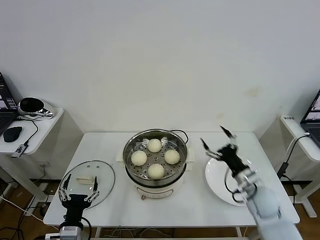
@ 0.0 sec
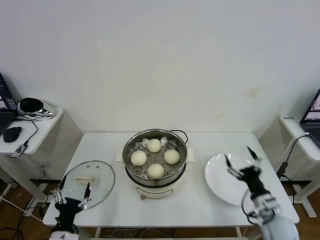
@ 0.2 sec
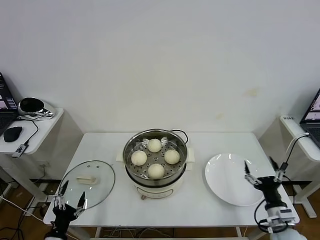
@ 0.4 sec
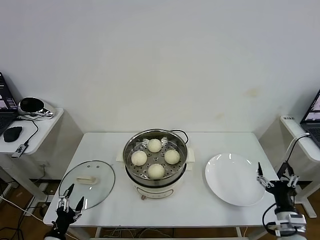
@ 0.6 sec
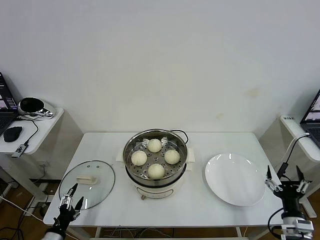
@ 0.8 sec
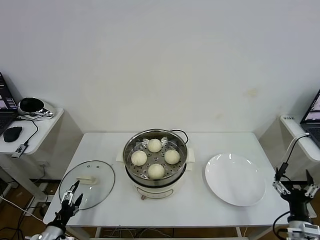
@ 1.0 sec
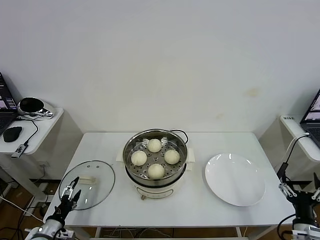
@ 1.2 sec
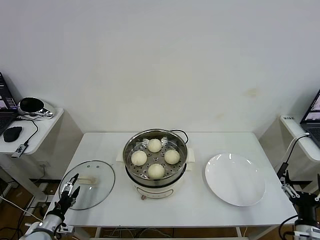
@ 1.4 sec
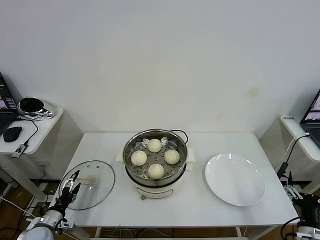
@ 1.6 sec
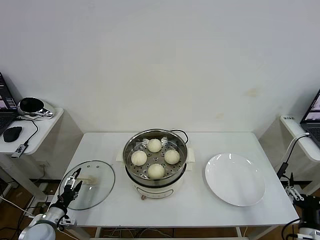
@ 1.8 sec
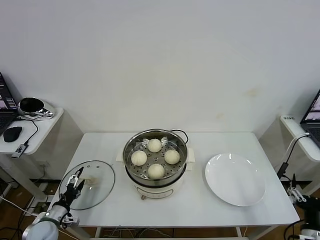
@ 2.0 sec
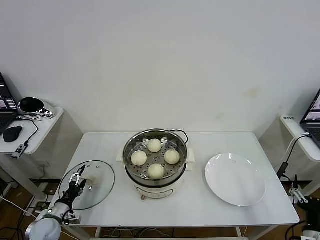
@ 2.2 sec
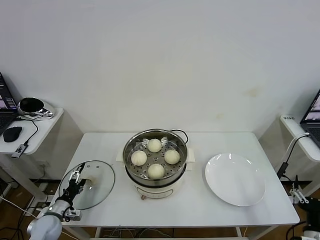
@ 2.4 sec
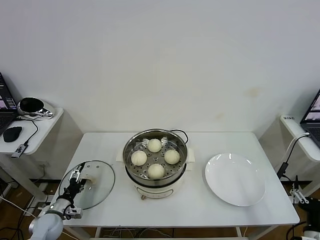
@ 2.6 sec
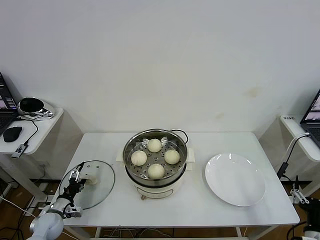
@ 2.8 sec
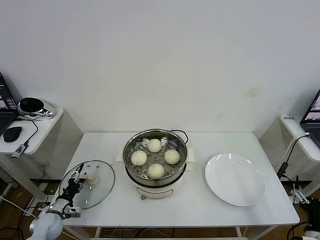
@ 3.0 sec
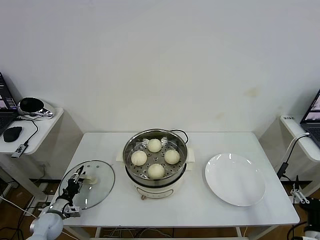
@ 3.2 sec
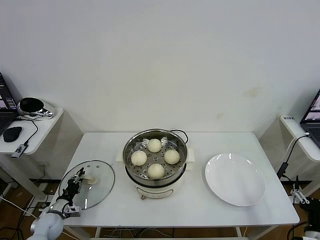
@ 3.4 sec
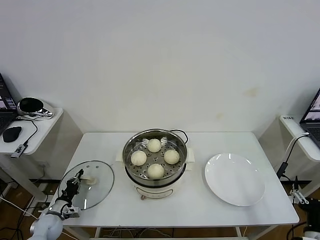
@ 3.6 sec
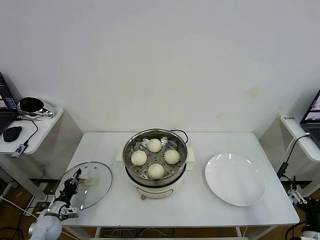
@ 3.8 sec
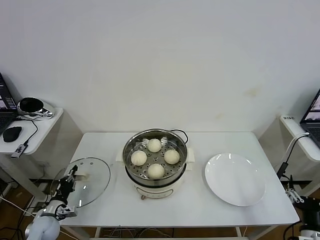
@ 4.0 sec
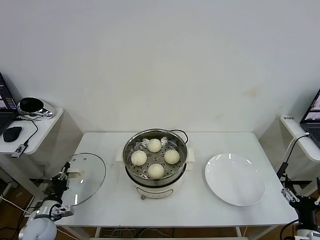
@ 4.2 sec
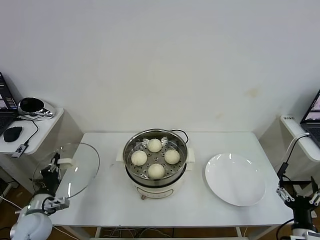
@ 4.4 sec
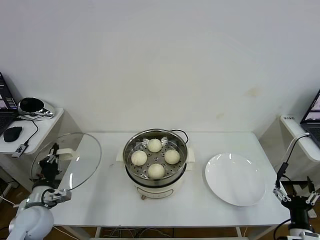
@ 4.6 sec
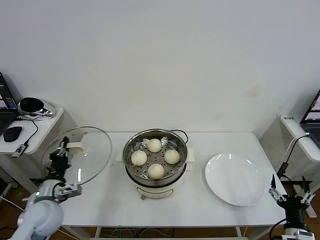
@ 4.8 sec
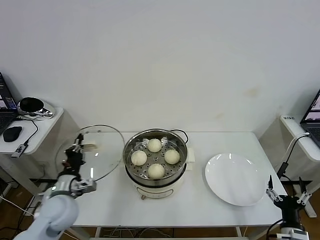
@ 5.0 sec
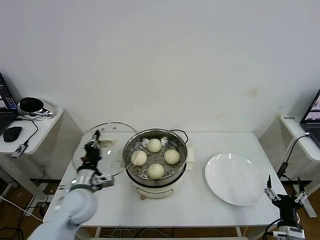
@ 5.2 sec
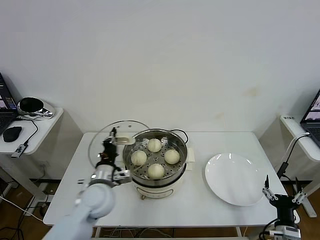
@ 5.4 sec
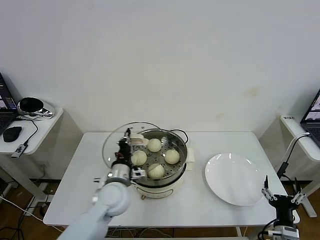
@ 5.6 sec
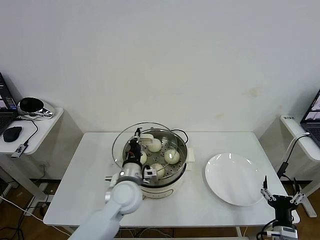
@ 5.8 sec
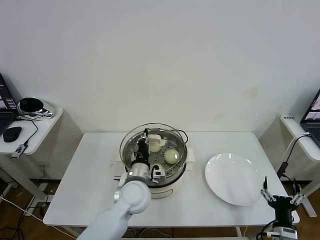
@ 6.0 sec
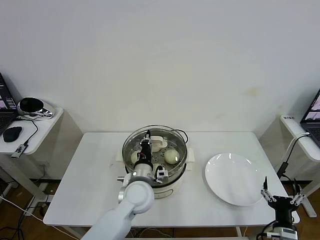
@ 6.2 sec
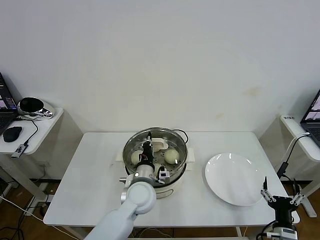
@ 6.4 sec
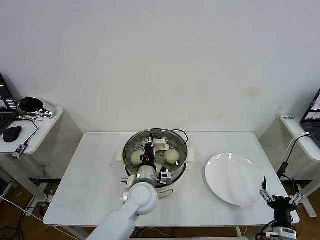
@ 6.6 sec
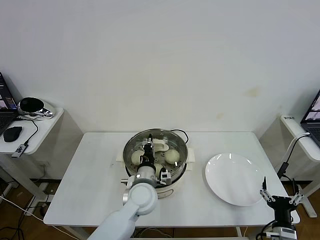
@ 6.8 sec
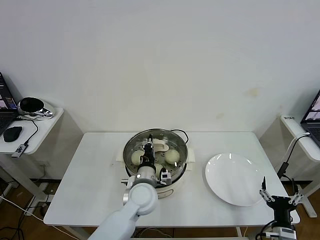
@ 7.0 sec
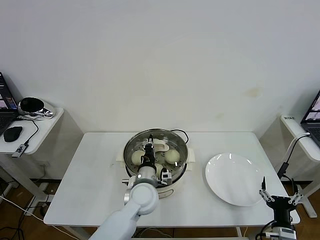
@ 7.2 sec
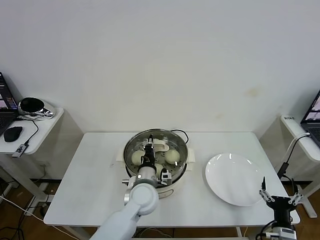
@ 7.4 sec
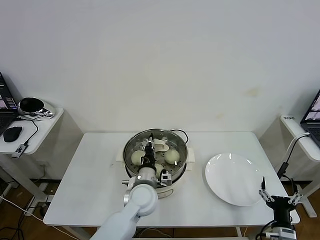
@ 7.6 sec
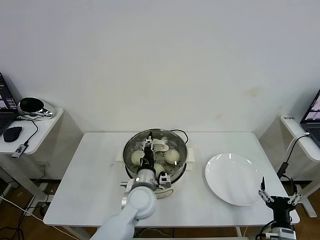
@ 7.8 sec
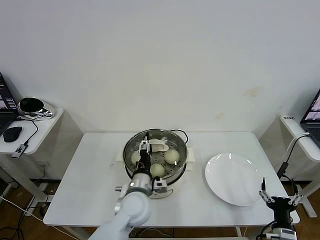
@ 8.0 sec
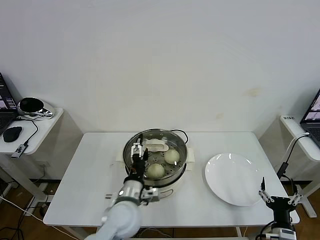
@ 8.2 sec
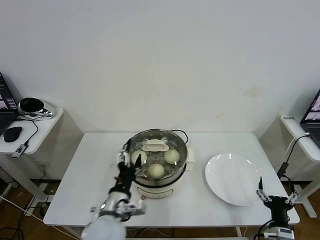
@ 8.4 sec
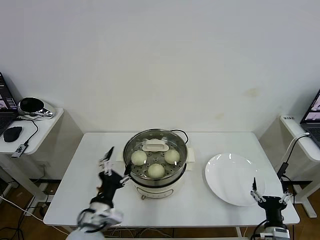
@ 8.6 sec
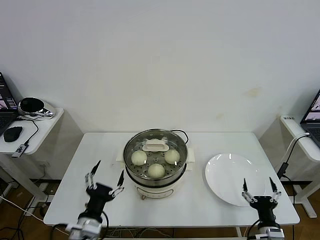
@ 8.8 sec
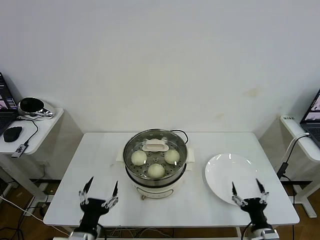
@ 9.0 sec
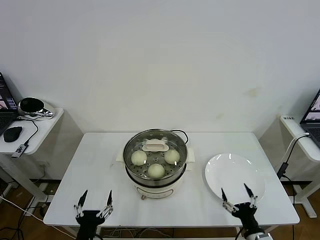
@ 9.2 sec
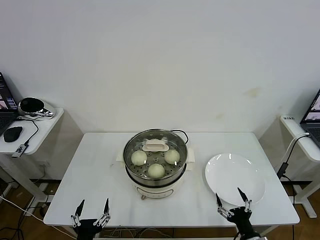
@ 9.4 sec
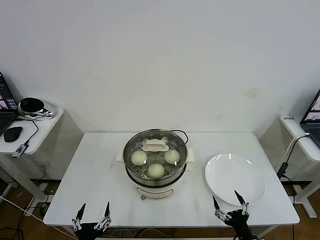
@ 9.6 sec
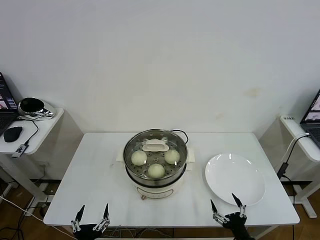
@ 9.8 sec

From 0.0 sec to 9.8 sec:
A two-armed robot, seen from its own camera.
Task of the whole recording: take steamed baozi put them in steamer then cover it.
Step, from 0.0 sec to 3.6 sec: Grasp the pot lid with left gripper.
Step, from 4.0 sec to 7.8 sec: Place the pot lid on the steamer with left gripper.
From 0.0 sec to 1.4 sec: The right gripper is displaced backward and to the right by approximately 20 cm. Meanwhile the left gripper moves to the left and downward, roughly 20 cm.
From 1.4 sec to 2.8 sec: The left gripper is displaced forward by approximately 10 cm.
From 2.8 sec to 4.2 sec: The left gripper closes up.
From 4.2 sec to 5.6 sec: The left gripper moves to the right and upward, some 30 cm; the right gripper ends up approximately 5 cm from where it was.
From 5.6 sec to 7.0 sec: The left gripper moves to the right, some 10 cm.
From 7.0 sec to 8.4 sec: The left gripper shifts roughly 10 cm backward and to the left, and opens up.
From 8.4 sec to 9.8 sec: The right gripper travels to the left by roughly 5 cm, while the left gripper shifts about 20 cm backward, to the left and downward.

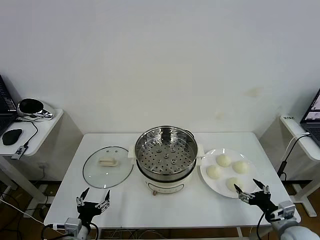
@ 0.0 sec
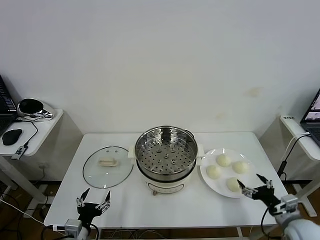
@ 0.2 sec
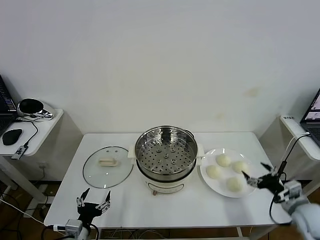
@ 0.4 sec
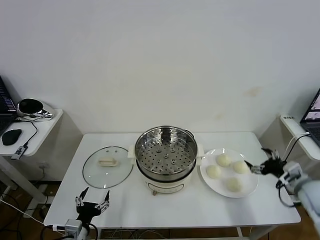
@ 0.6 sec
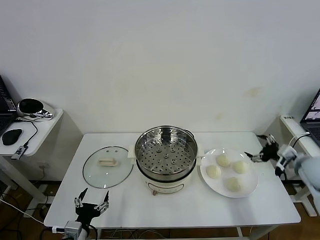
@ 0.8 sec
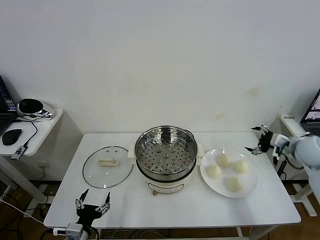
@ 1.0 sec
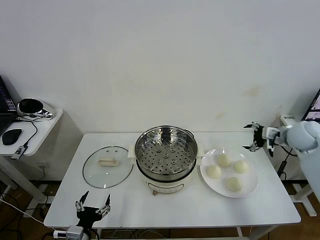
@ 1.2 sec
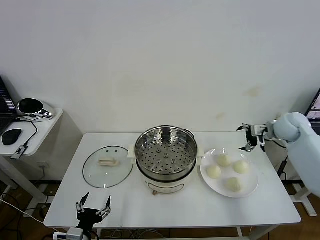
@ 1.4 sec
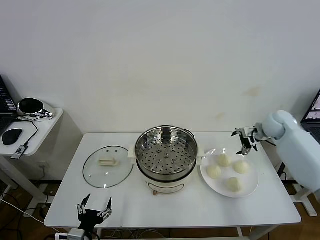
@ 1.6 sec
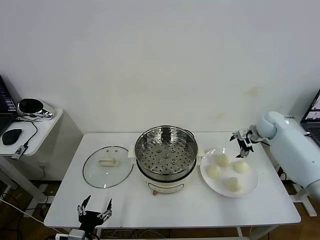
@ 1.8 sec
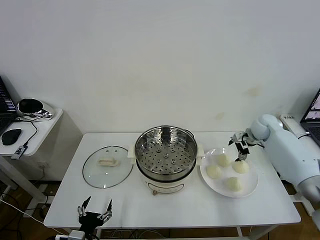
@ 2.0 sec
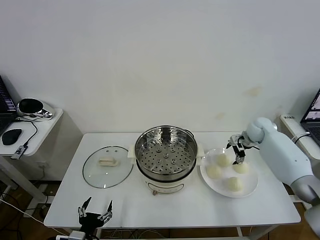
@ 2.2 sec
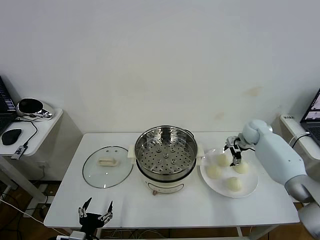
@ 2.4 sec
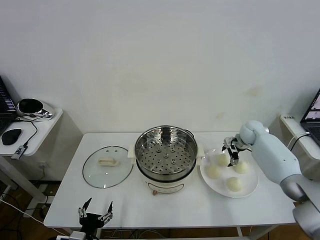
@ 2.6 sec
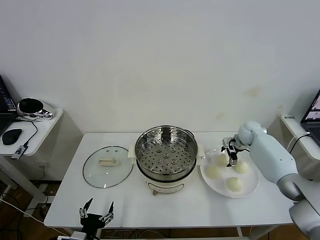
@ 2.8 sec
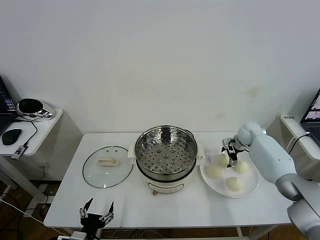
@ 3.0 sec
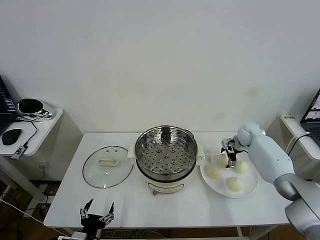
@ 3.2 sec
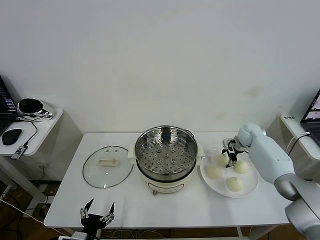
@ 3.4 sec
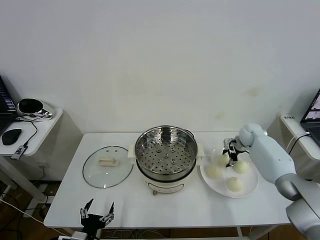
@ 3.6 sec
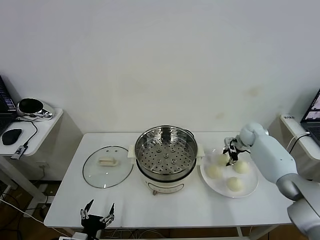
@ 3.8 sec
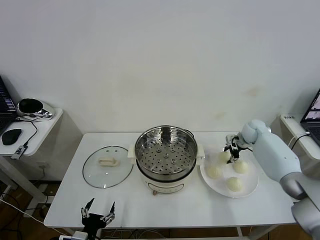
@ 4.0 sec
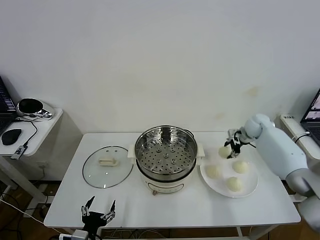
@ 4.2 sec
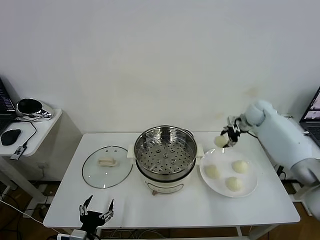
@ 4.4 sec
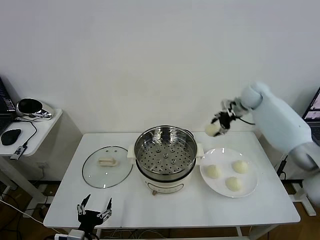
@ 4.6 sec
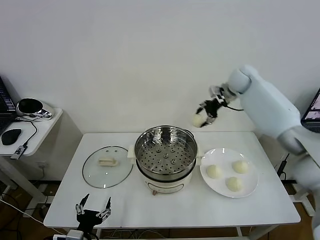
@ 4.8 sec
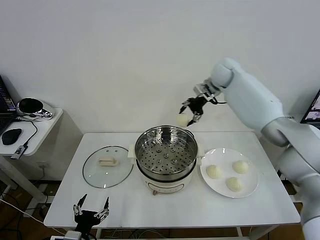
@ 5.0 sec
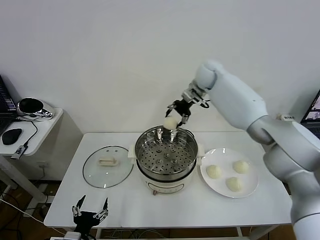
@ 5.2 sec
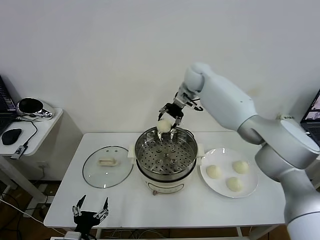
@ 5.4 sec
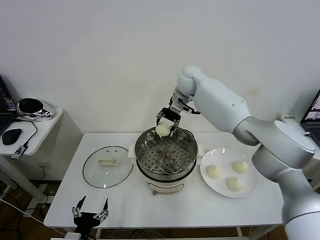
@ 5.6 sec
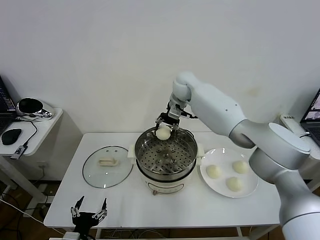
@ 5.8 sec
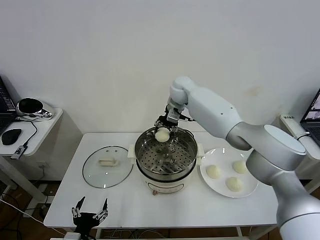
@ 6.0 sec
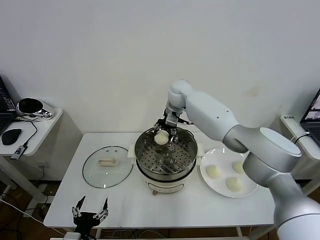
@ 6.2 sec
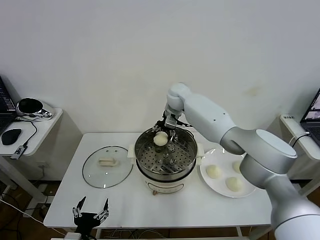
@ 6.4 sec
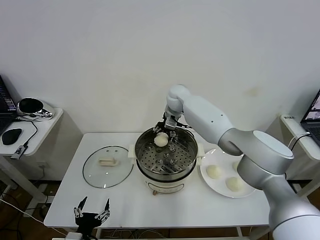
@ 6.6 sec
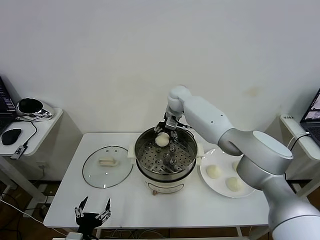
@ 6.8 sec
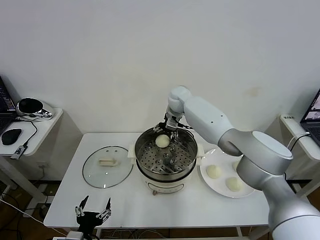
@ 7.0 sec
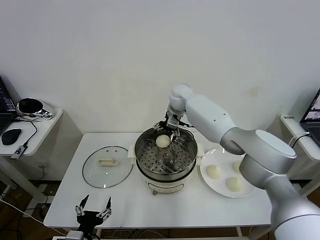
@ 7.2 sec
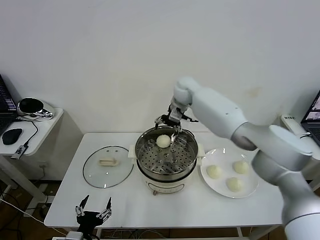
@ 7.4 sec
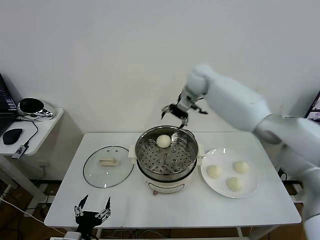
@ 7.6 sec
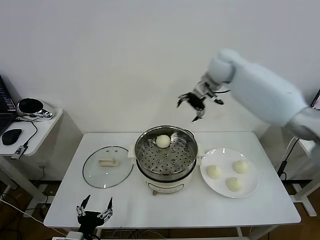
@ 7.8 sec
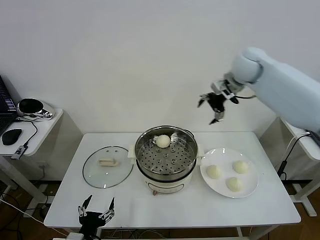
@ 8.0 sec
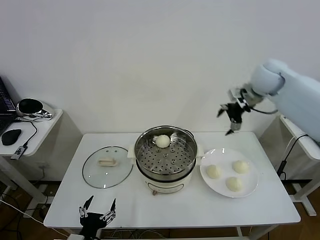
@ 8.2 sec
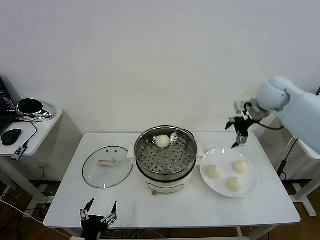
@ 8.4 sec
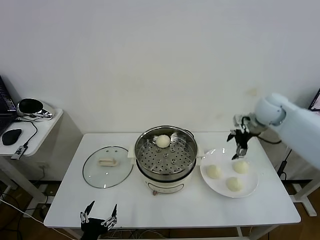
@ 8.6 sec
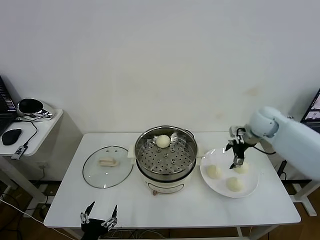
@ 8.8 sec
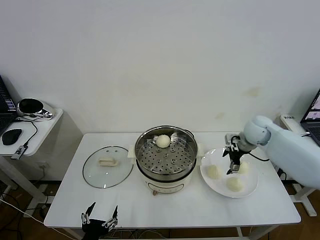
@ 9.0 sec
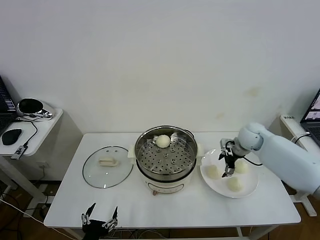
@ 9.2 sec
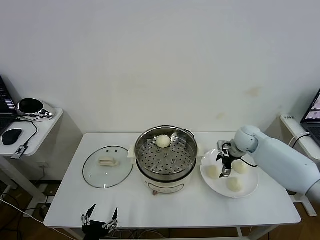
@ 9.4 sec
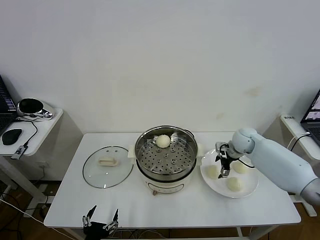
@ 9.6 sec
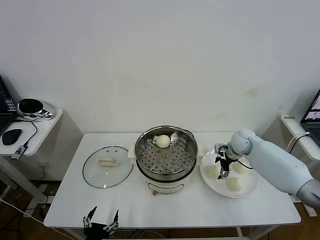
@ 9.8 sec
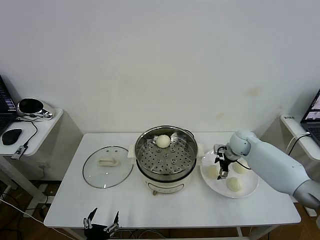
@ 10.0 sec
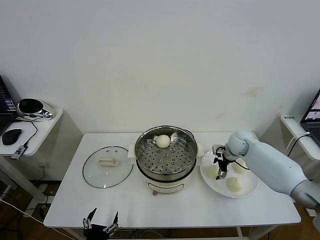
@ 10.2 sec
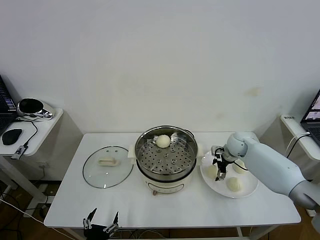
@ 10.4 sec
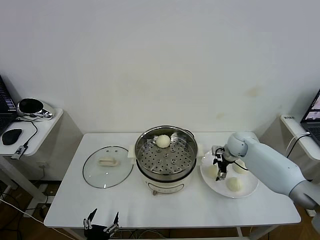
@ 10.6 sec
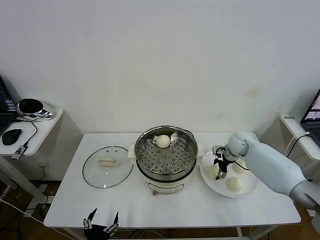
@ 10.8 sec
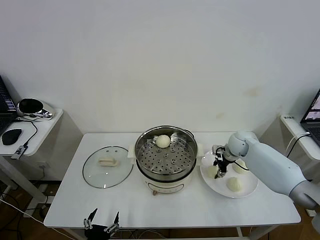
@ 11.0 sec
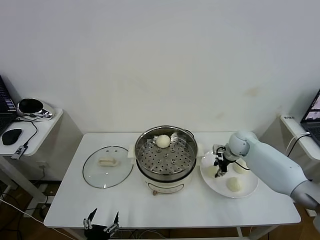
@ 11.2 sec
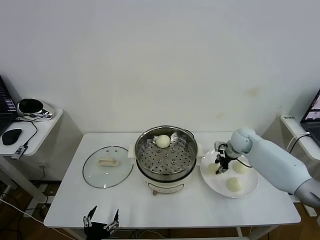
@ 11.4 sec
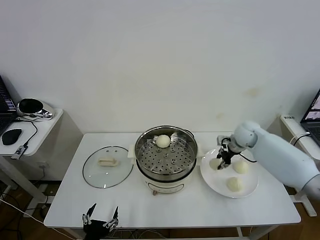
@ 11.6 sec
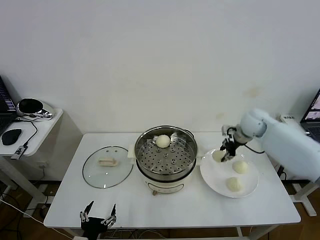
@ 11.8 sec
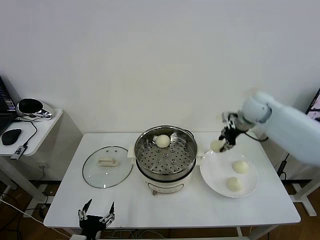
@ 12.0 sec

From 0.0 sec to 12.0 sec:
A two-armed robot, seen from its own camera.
Task of the whole recording: take steamed baozi put them in steamer then cover it.
Step, from 0.0 sec to 3.4 sec: Grasp the baozi in the plate with right gripper.
Step, from 3.8 sec to 7.2 sec: Place the baozi on the steamer with right gripper.
Step, from 7.4 sec to 10.8 sec: Grasp the baozi in the plate with right gripper.
From 1.6 sec to 3.0 sec: The right gripper is displaced downward by about 10 cm.
From 3.0 sec to 4.4 sec: The right gripper is displaced upward by about 15 cm, and closes up.
From 4.4 sec to 6.0 sec: The right gripper shifts some 30 cm to the left.
From 6.0 sec to 7.6 sec: The right gripper heads to the right and upward, covering approximately 15 cm, and opens.
From 7.6 sec to 9.0 sec: The right gripper heads downward, to the right and backward, covering about 25 cm.
From 9.0 sec to 10.4 sec: The right gripper travels downward by roughly 5 cm.
From 10.4 sec to 12.0 sec: The right gripper shifts about 20 cm upward, and closes.
